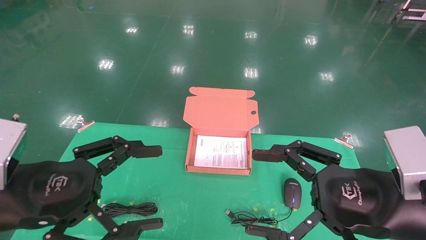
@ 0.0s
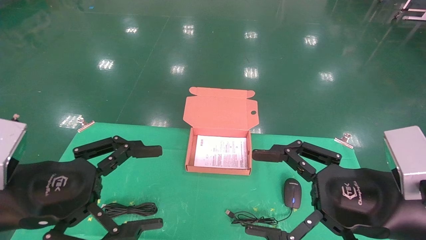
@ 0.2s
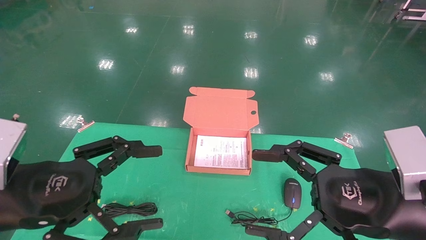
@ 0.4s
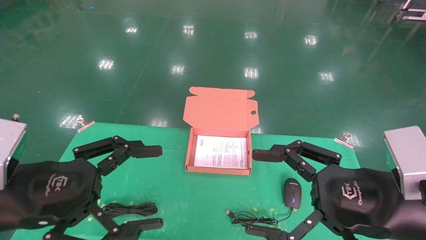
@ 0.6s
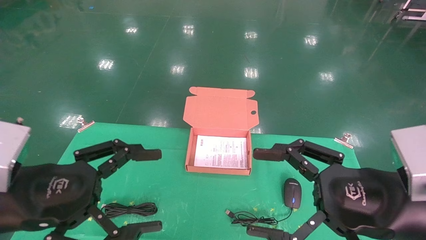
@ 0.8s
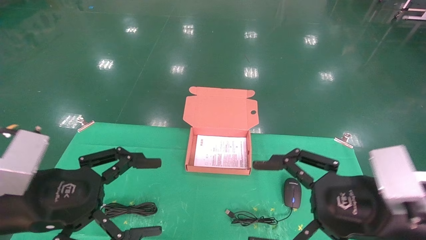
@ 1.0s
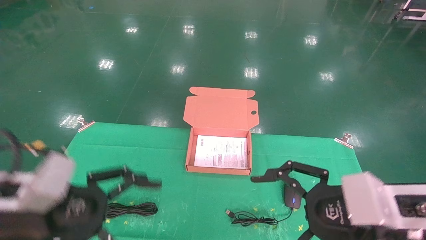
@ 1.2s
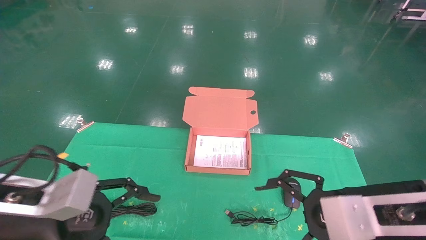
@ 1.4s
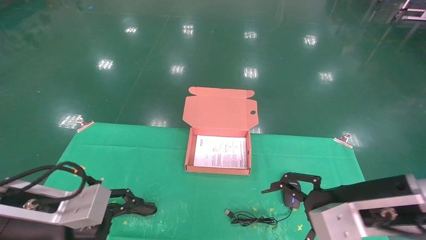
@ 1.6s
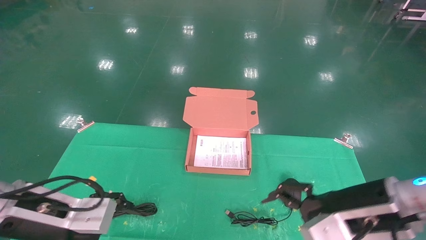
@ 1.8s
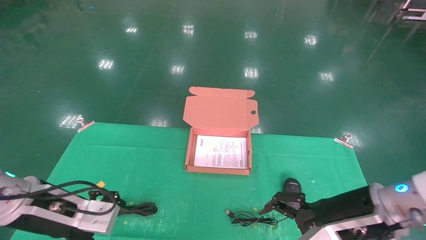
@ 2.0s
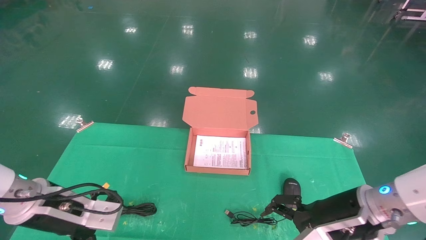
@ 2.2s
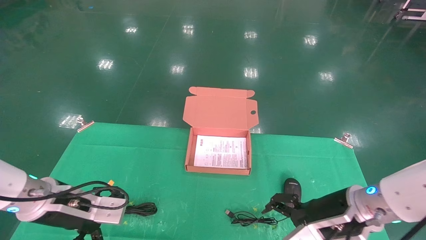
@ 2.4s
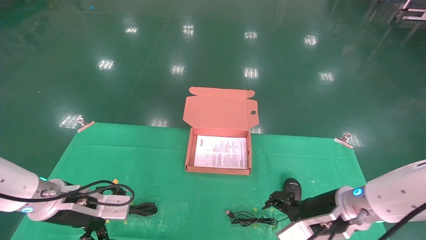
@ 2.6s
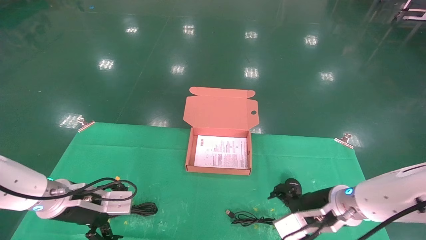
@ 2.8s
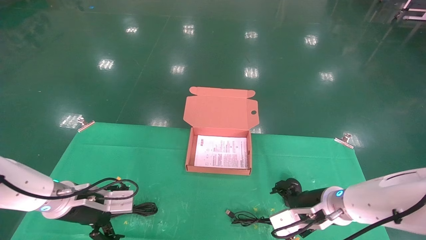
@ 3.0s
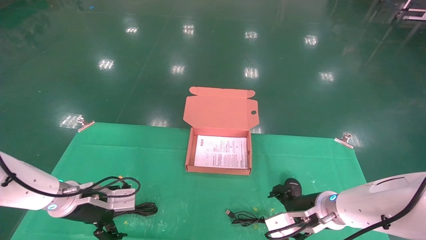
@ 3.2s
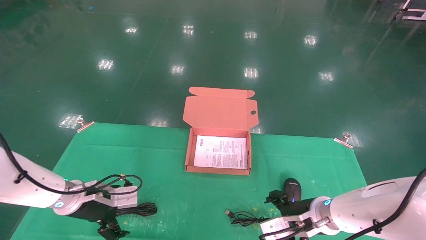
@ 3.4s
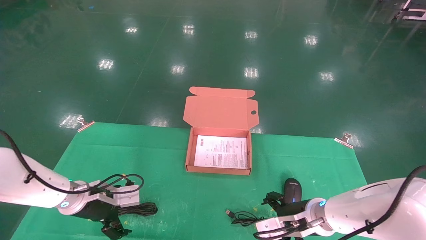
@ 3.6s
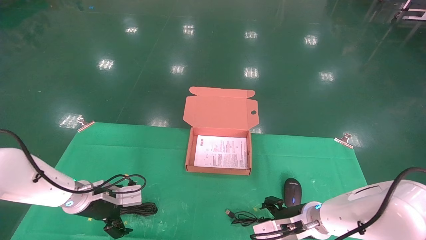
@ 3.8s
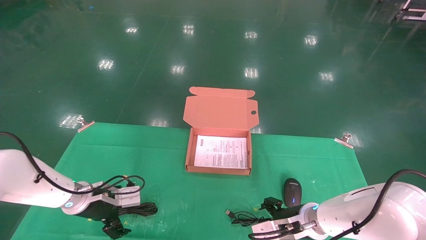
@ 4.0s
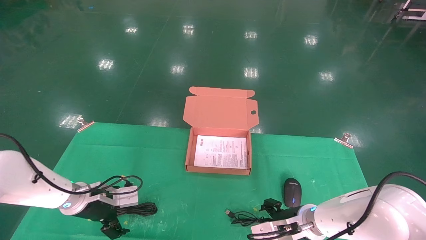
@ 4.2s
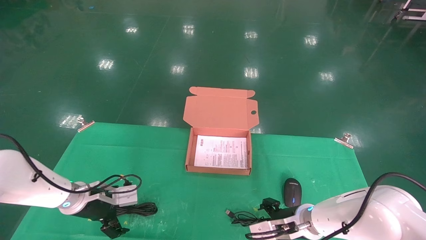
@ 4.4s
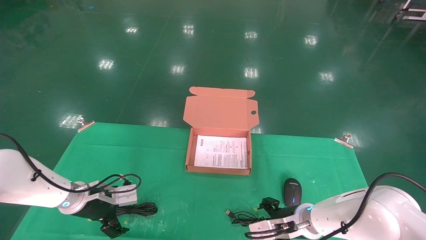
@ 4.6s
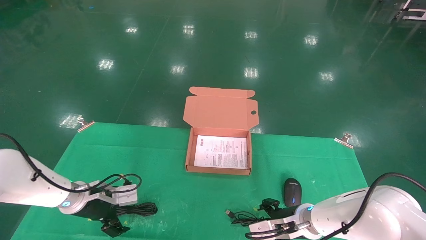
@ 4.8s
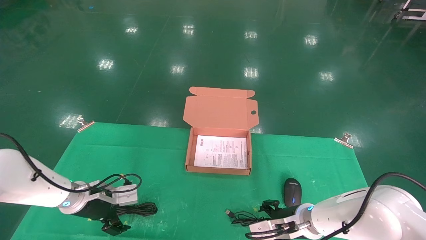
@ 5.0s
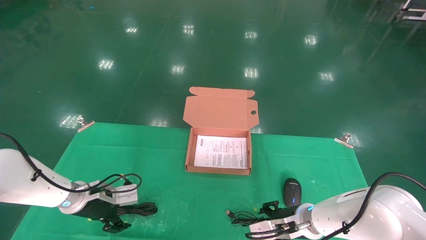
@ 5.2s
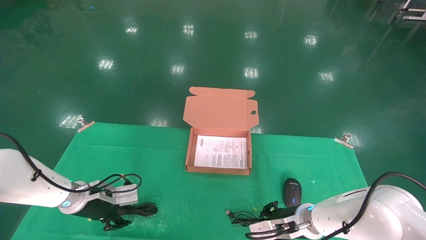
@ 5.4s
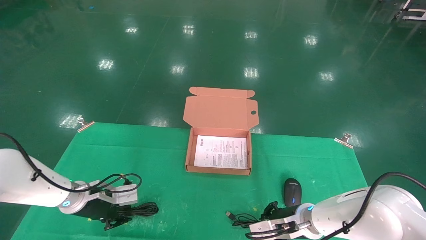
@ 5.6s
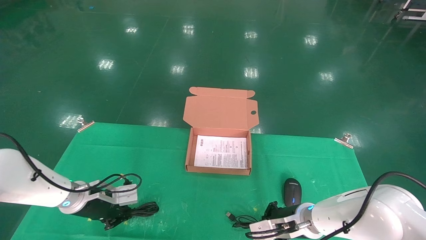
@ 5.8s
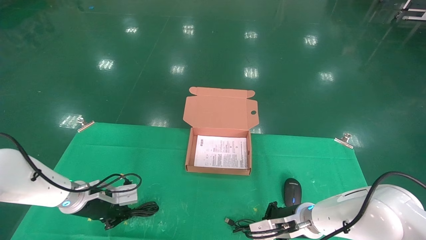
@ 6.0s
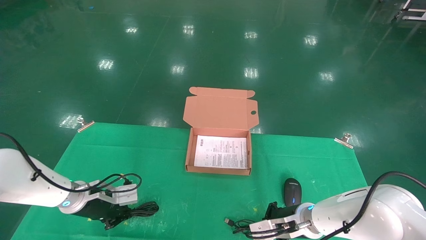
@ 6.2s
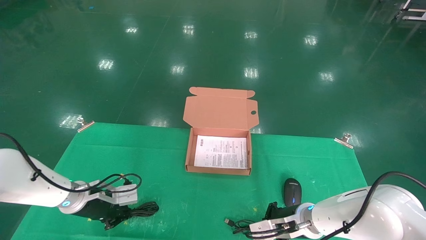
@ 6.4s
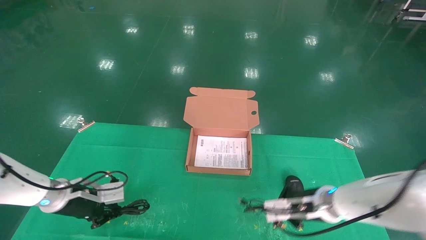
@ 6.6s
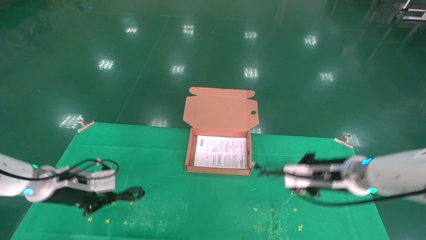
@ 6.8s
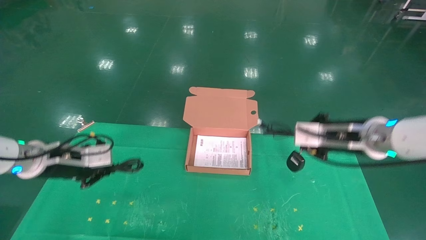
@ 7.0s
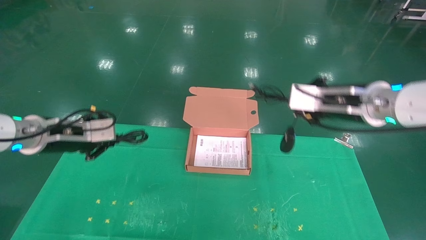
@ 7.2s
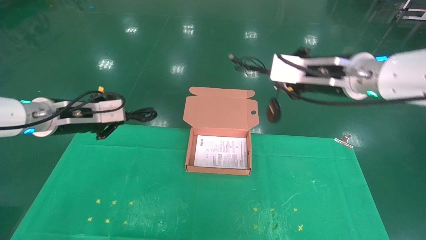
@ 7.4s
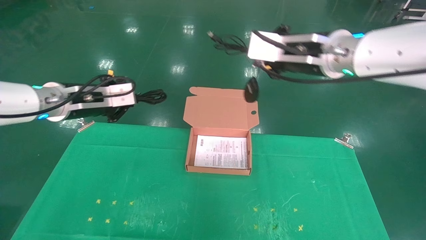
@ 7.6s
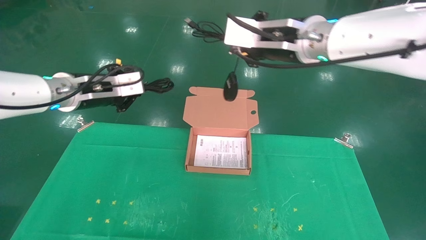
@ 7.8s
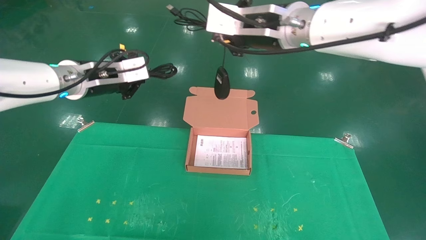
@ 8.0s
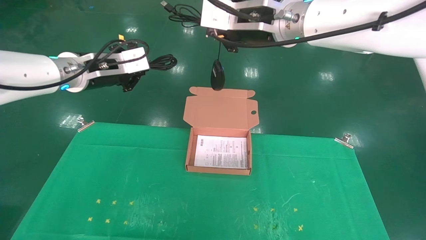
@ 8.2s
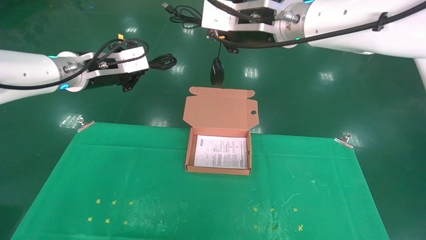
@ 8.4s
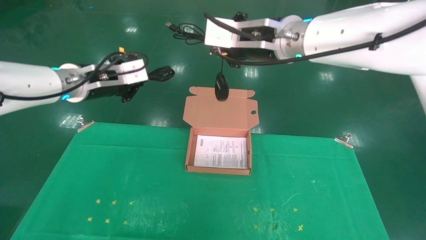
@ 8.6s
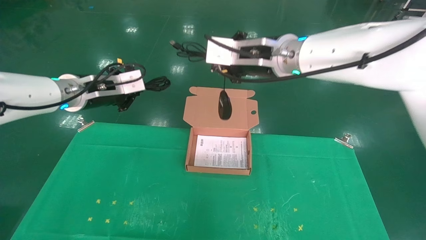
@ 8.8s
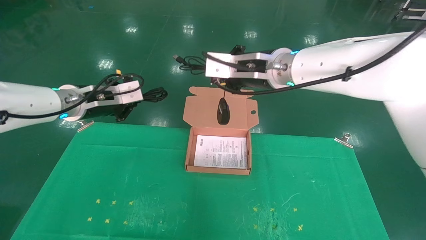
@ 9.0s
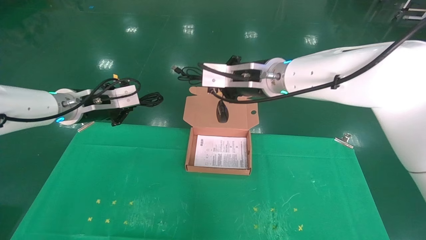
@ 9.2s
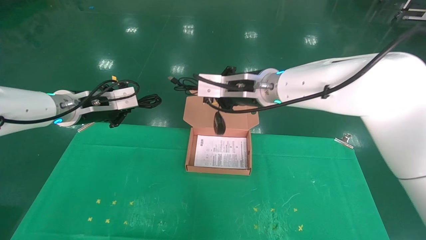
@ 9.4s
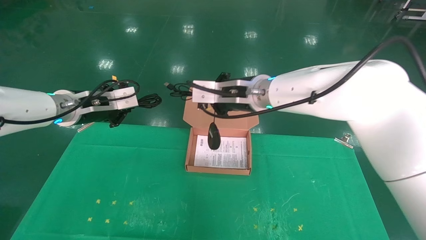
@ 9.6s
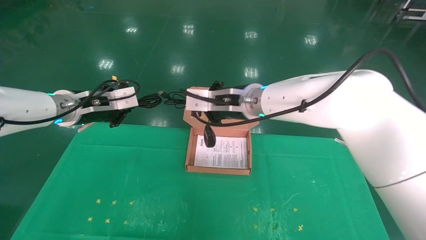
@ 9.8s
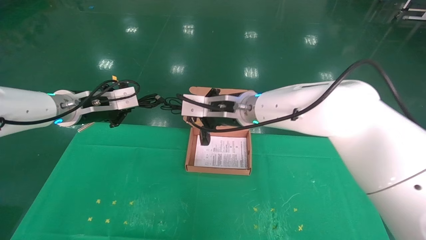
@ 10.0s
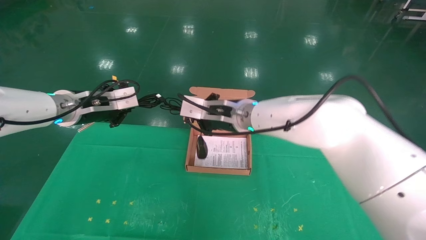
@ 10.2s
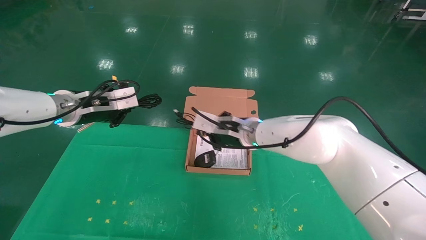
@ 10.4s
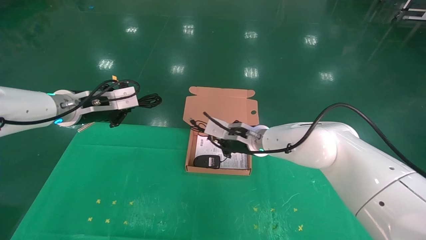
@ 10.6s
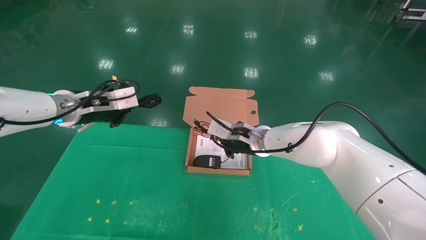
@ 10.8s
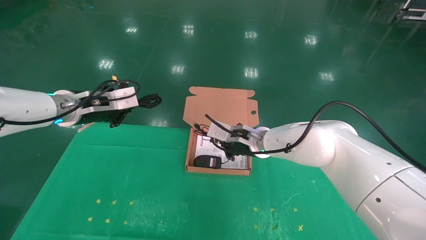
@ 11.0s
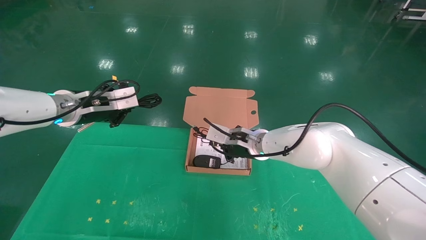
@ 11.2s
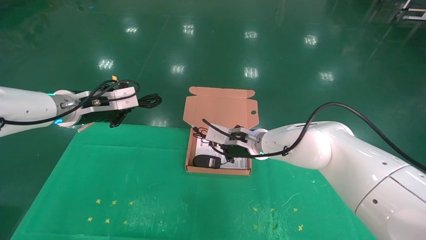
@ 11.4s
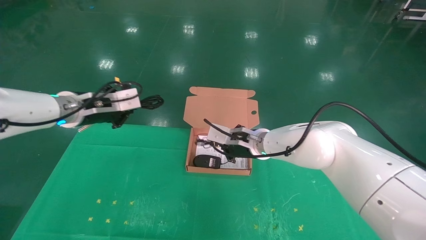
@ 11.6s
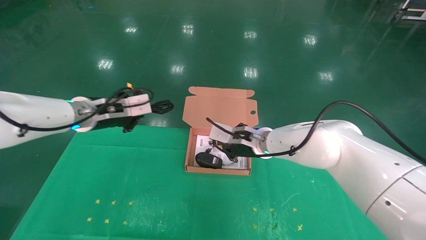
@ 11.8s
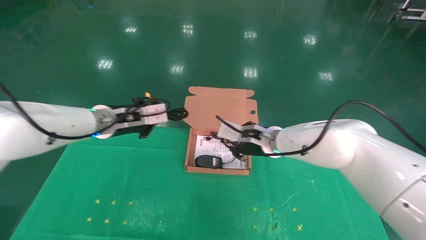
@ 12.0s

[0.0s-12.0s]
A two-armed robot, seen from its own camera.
Task of the whole recording: grasp data cable left put into box grasp mouse right put into box.
Step, 1.2s to 5.8s: Grab and pick up both the mouse and power cord from the accessory packaging area at the same time.
0.0s to 1.6s: The left gripper moves approximately 5 cm. Meanwhile the right gripper is displaced forward by roughly 5 cm.
1.6s to 3.0s: Both grippers travel together forward and downward, about 15 cm.
3.0s to 4.4s: The right gripper shifts roughly 5 cm downward. Meanwhile the left gripper is displaced forward by some 5 cm.
4.4s to 6.0s: The left gripper closes up, while the right gripper closes.
6.0s to 7.6s: The right gripper heads upward, covering roughly 35 cm; the left gripper travels upward by roughly 25 cm.
7.6s to 9.0s: The right gripper heads to the left, covering approximately 10 cm.
9.0s to 10.4s: The right gripper is displaced downward by some 15 cm.
10.4s to 12.0s: Both grippers move to the right, some 5 cm.

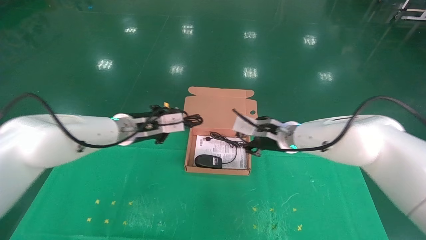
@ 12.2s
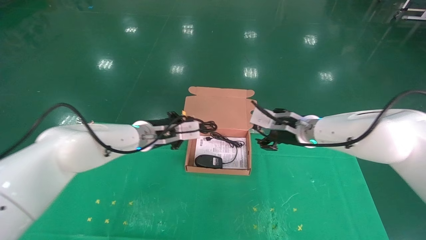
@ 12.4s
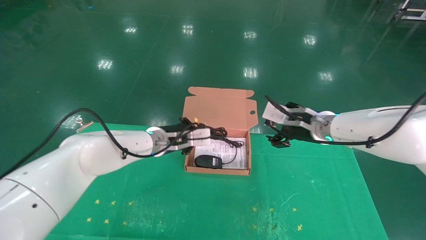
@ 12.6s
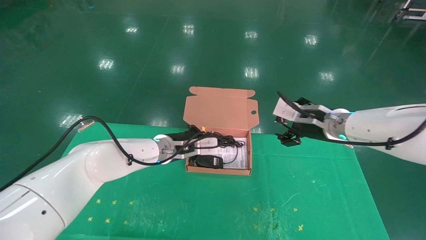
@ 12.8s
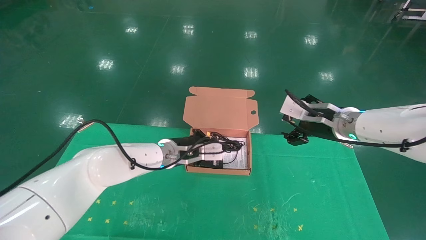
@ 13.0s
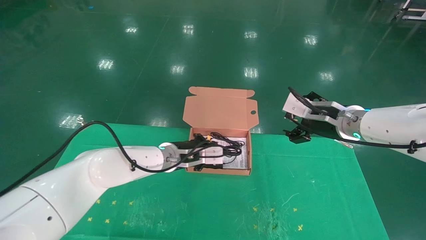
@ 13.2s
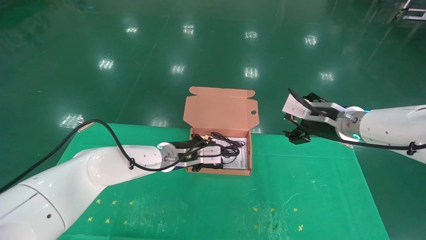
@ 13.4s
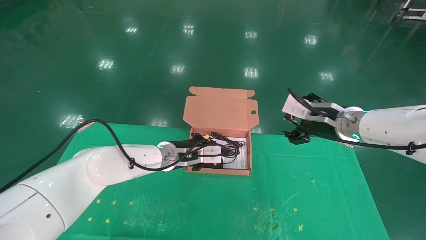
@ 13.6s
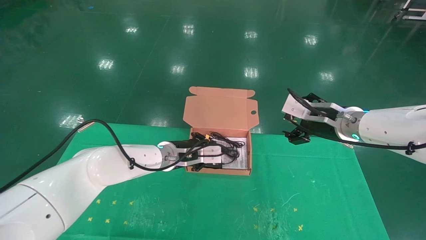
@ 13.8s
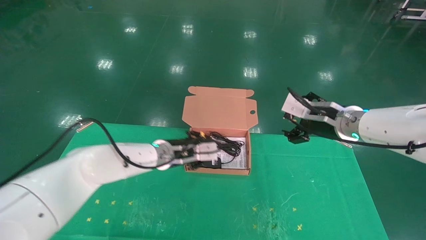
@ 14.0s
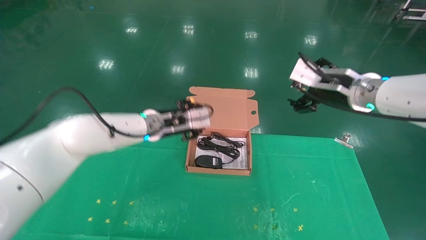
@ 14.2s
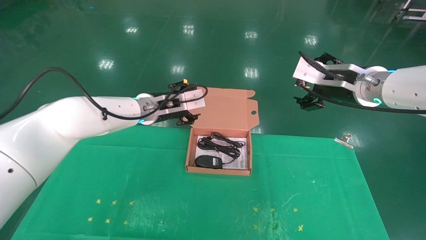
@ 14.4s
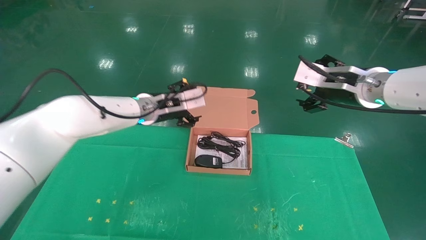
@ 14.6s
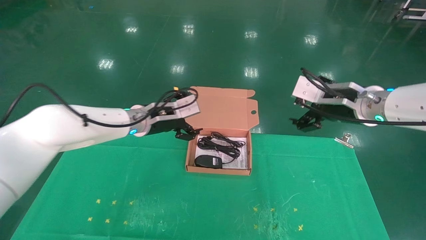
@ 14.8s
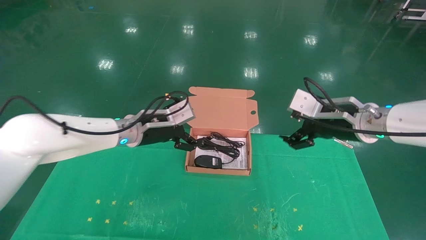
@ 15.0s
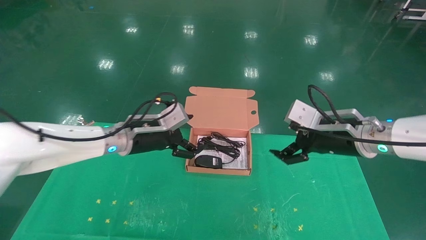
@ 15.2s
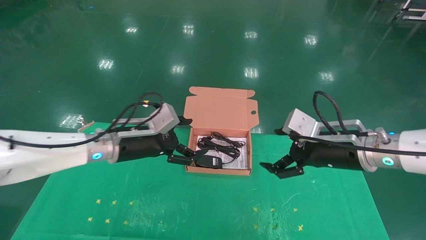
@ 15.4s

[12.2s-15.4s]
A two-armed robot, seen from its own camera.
Task of the whole recording: grasp data cable left put into box grasp mouse right put into box.
12.2s to 13.8s: The left gripper heads to the right and downward, covering roughly 10 cm, while the right gripper shifts about 10 cm to the right, and opens up.
13.8s to 15.4s: The left gripper is displaced to the left, backward and upward by about 15 cm, and opens its fingers. Meanwhile the right gripper heads backward, covering roughly 5 cm, and reaches about 5 cm upward, then returns.

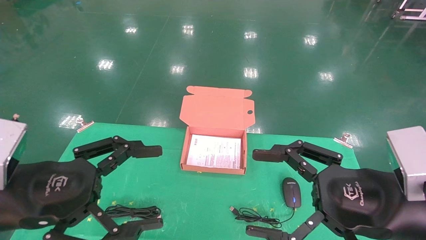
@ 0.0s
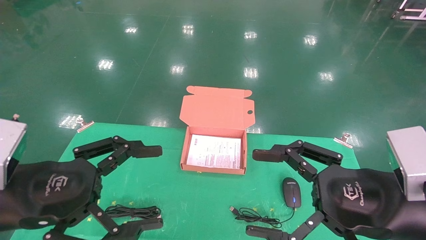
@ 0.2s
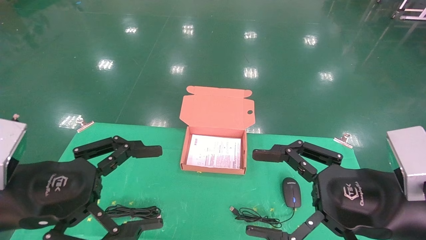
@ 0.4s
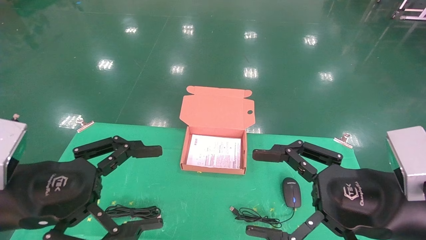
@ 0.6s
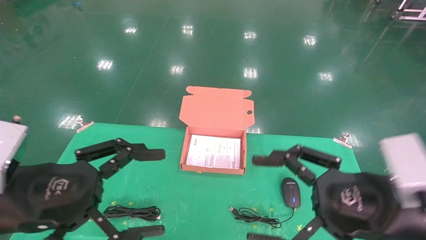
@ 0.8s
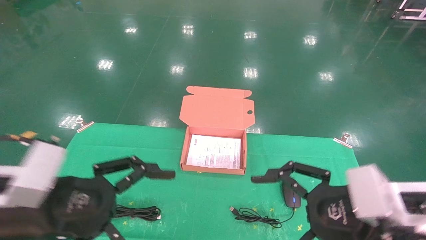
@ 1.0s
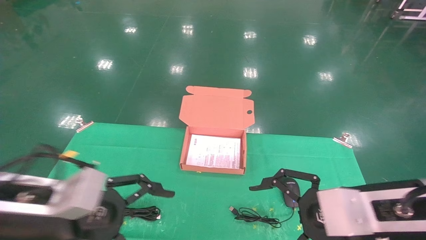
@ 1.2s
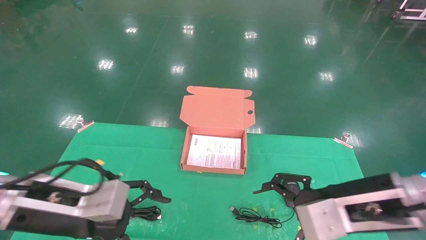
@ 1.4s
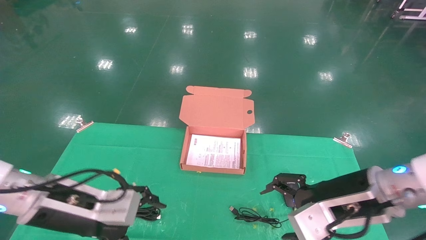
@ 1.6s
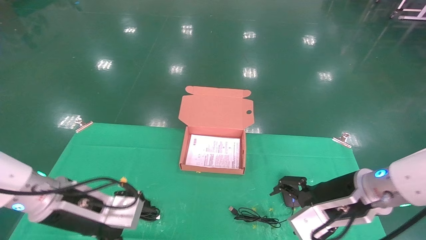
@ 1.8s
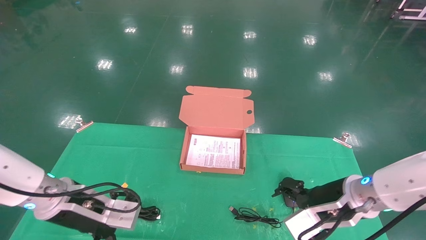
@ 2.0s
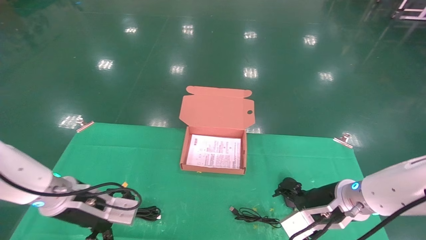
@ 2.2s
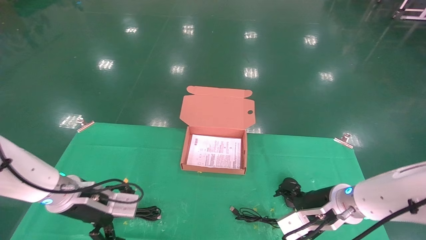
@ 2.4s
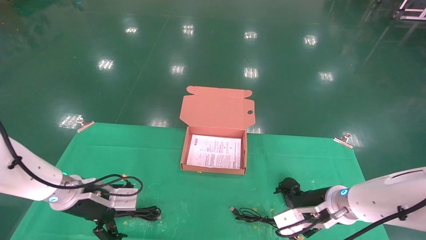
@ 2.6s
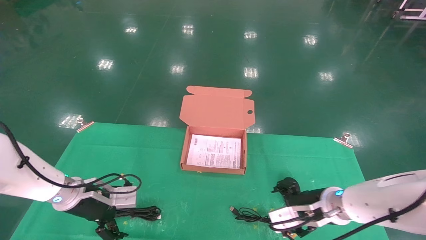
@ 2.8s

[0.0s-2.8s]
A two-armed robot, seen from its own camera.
Task of the whole recording: grasp data cable left put into box grasp mouse right put into box.
0.0s to 1.4s: Both grippers travel together forward, some 5 cm.
1.4s to 2.8s: The grippers both shift forward and downward by roughly 15 cm.
